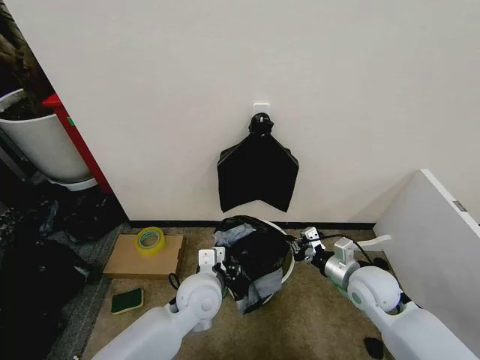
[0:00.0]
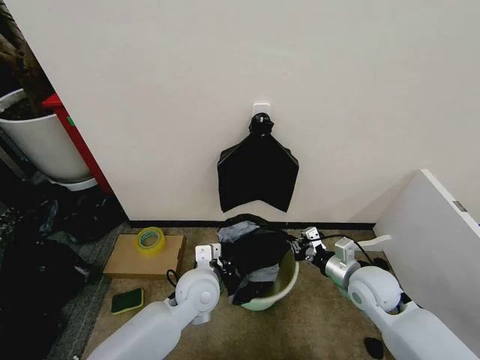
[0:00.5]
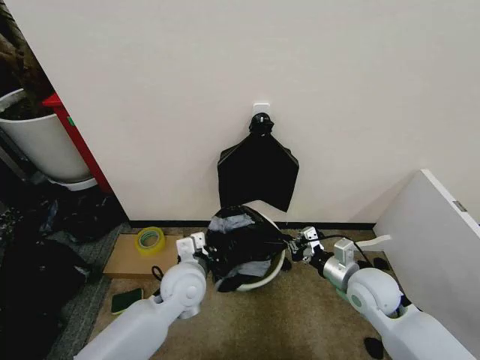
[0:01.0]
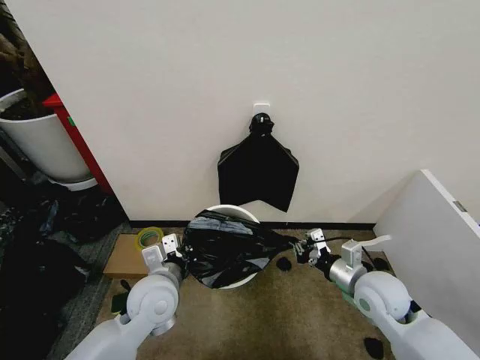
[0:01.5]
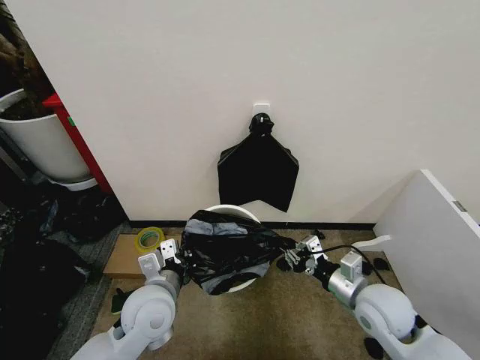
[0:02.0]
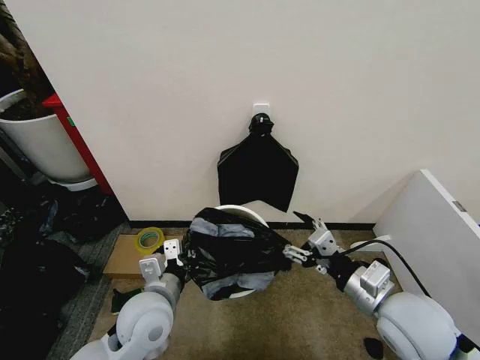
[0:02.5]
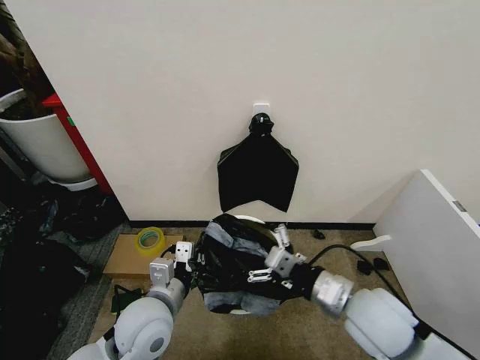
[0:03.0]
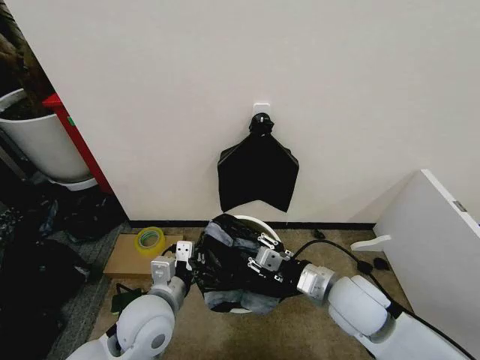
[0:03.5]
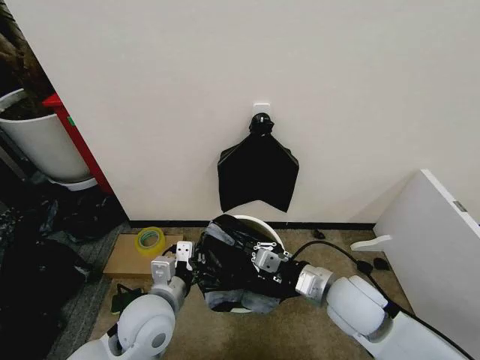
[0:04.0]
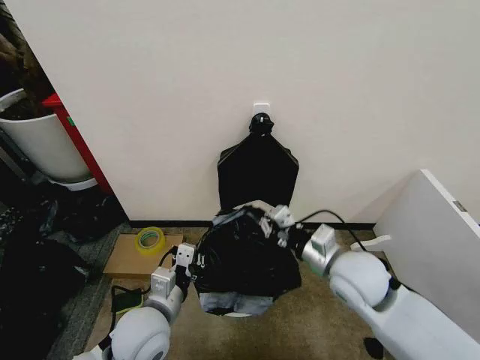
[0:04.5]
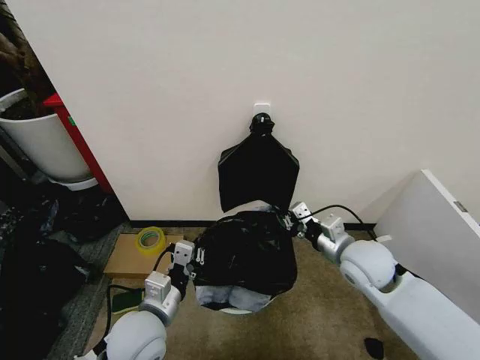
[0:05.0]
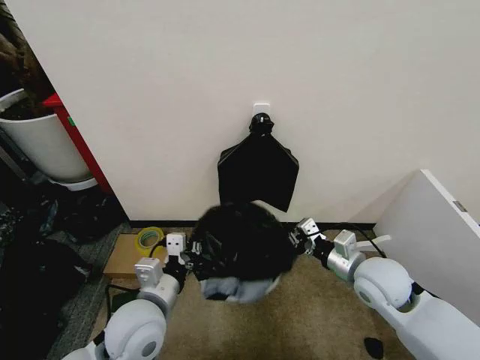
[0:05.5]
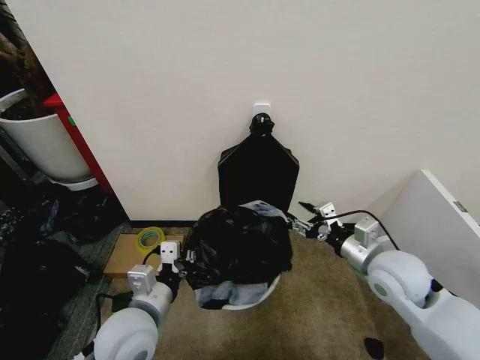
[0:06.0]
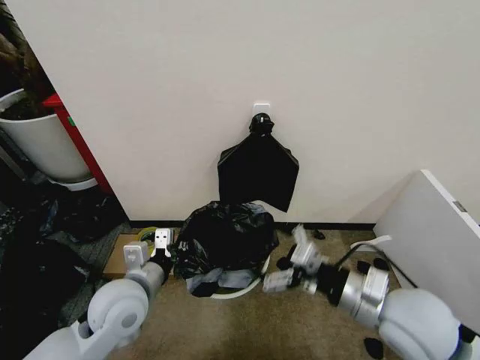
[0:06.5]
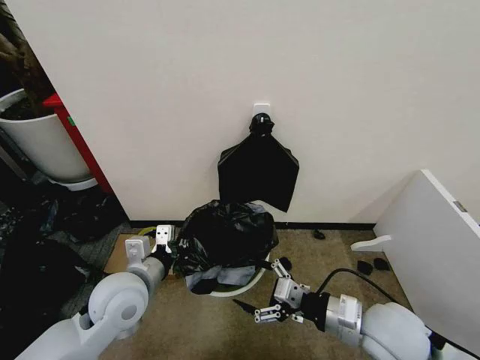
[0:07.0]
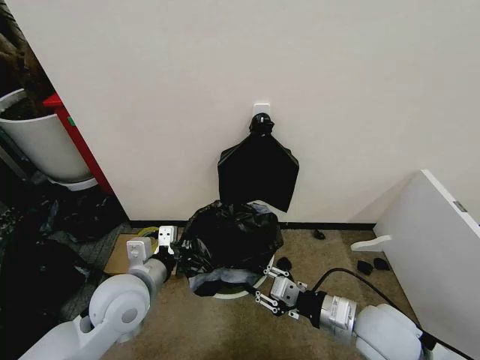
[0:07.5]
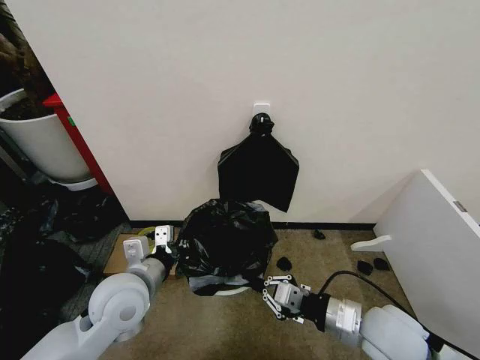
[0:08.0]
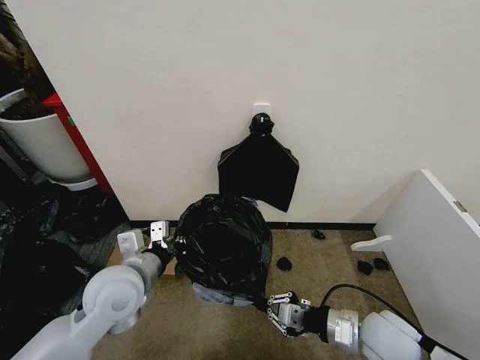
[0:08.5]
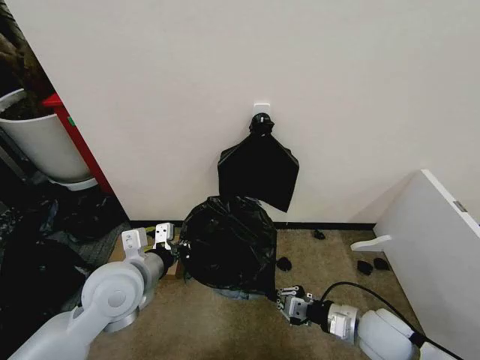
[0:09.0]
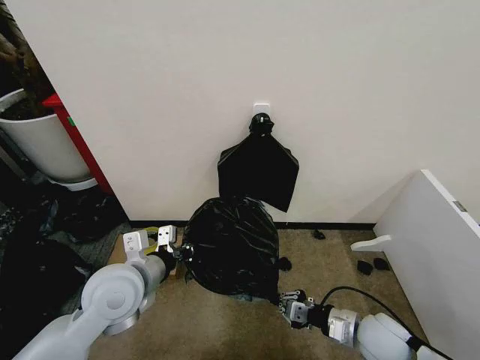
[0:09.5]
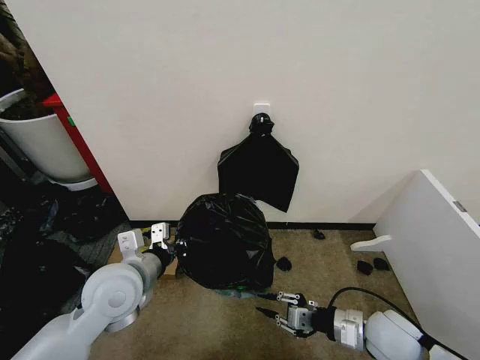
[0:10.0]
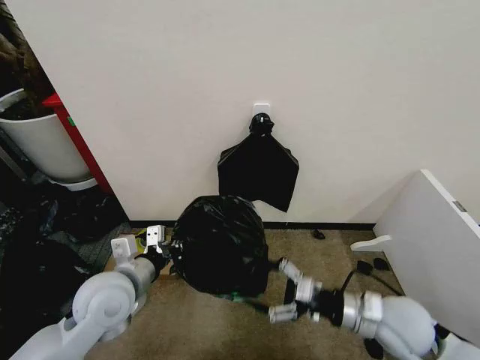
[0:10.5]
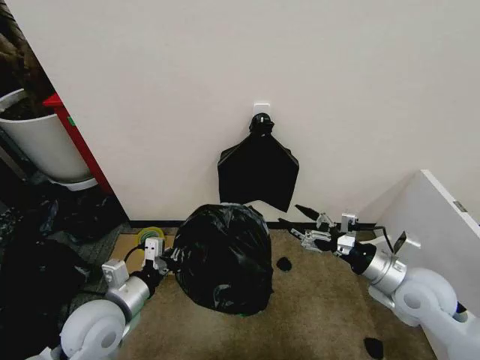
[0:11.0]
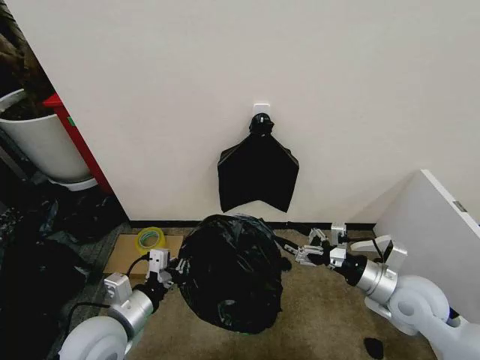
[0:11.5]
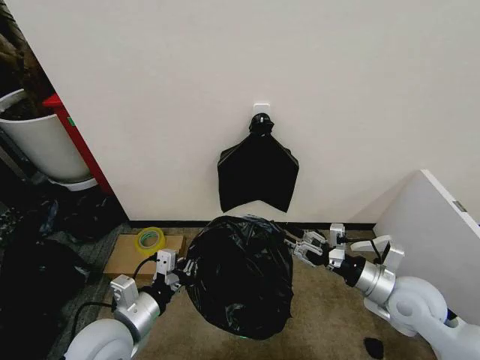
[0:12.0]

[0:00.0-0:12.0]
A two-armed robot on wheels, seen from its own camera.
Task of the whole recording: Place the garbage bag over the trash bin.
0.0 to 2.0 s: The right gripper travels backward by approximately 5 cm; the left gripper goes about 10 cm to the left, and closes up.
2.0 to 4.0 s: The right gripper moves to the left, roughly 5 cm, and opens, then closes again.
4.0 to 6.0 s: The right gripper goes about 10 cm to the right, and opens.
6.0 to 8.0 s: The left gripper travels forward by approximately 5 cm. Meanwhile the right gripper goes approximately 10 cm backward, and closes its fingers.
8.0 to 10.0 s: The right gripper shifts about 10 cm downward.
10.0 to 12.0 s: The left gripper heads backward and downward, covering roughly 10 cm; the right gripper shifts approximately 5 cm upward, and opens, then closes once more.

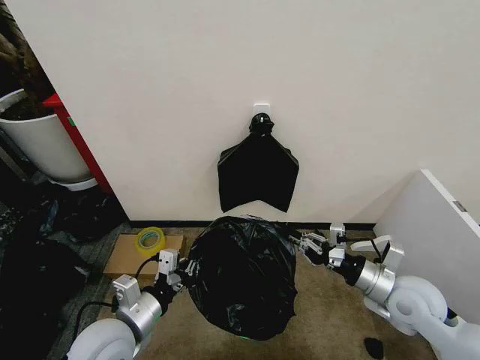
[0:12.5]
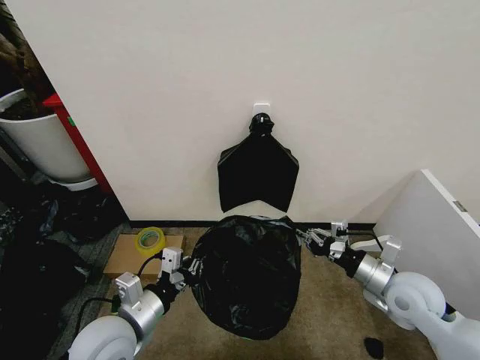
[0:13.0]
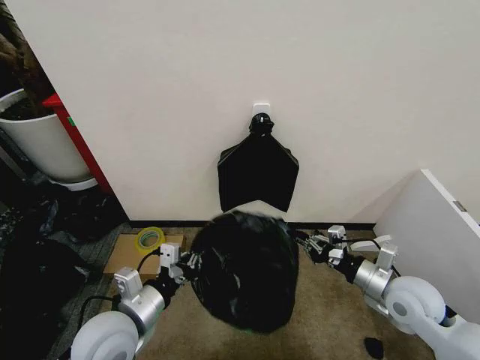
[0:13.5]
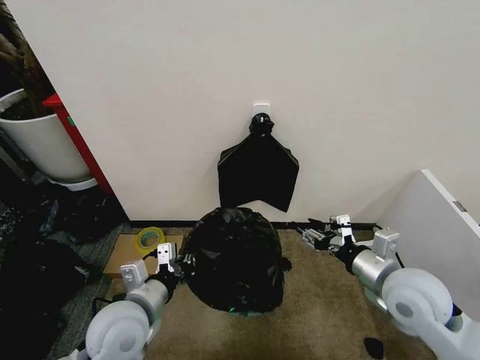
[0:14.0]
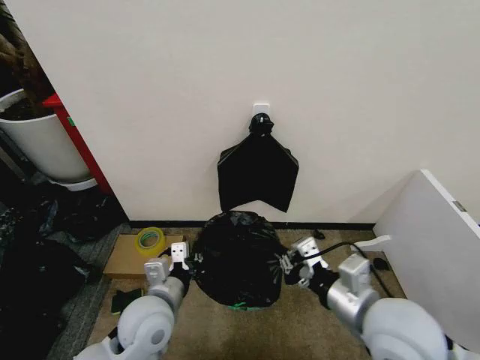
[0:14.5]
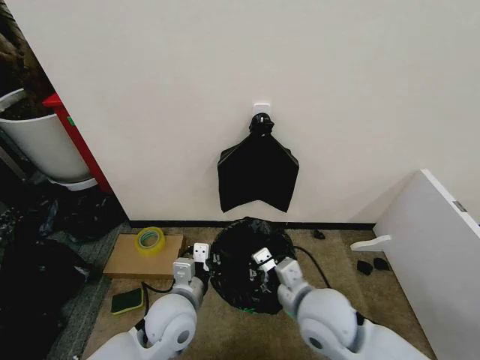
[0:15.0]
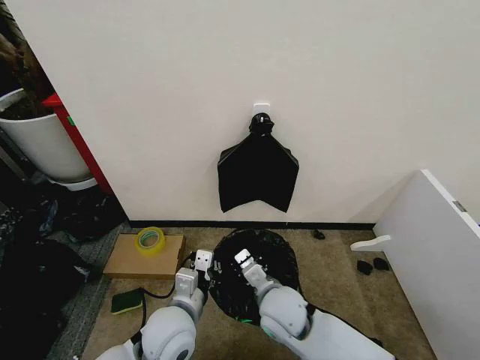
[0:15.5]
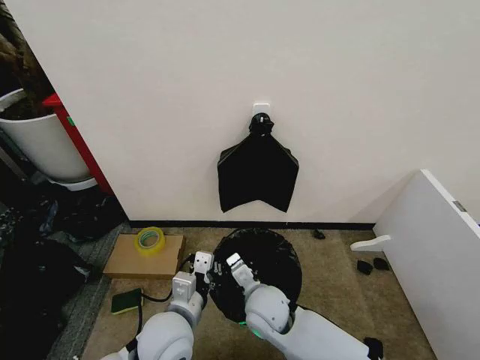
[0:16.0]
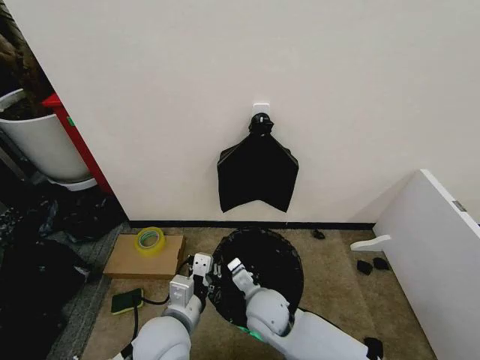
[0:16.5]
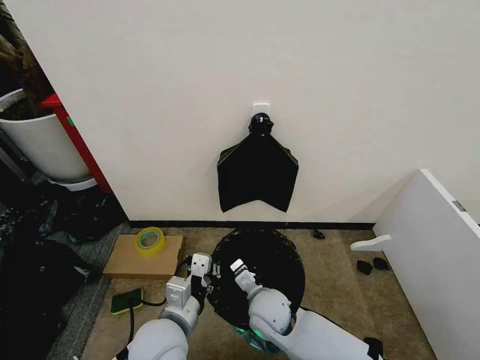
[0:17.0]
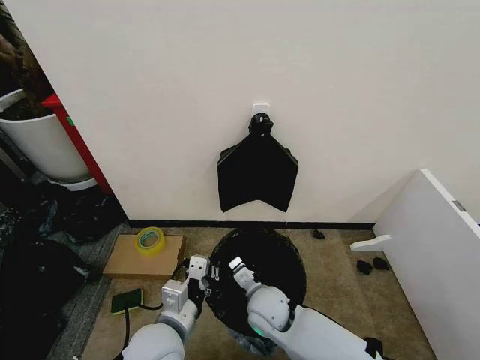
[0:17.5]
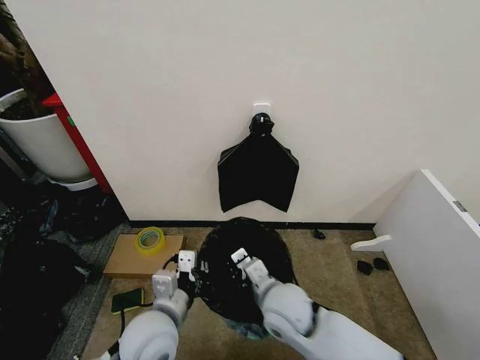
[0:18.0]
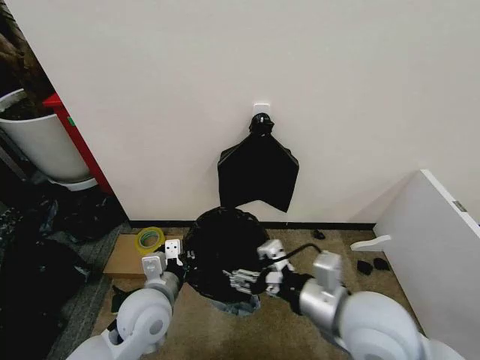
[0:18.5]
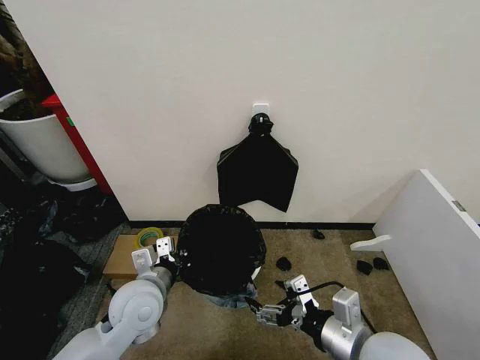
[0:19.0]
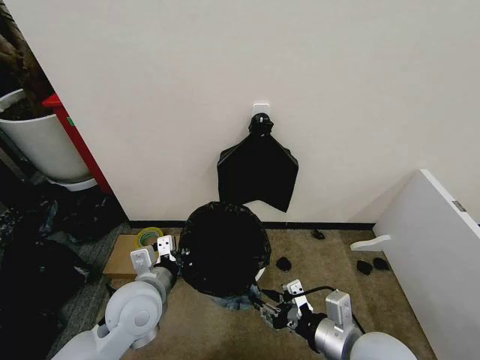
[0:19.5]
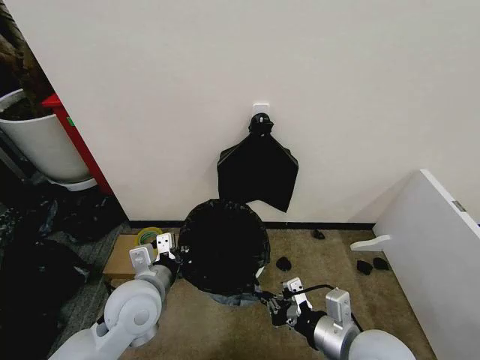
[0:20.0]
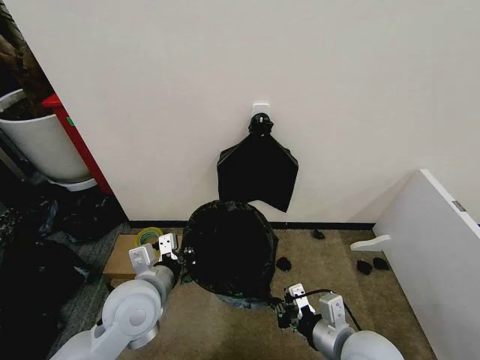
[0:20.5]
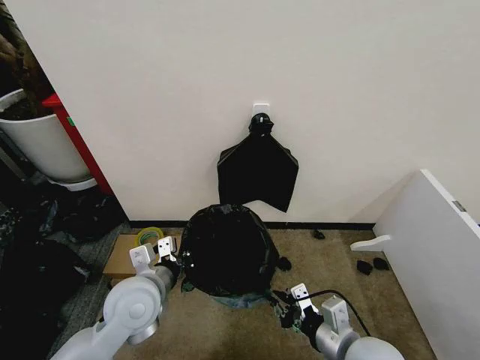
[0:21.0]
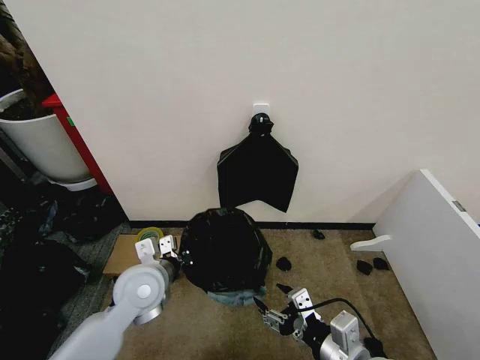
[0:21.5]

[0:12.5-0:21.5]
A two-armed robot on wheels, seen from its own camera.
Task of the whole recording: Place the garbage bag over the trash bin.
12.5 to 14.5 s: The left gripper moves to the right, roughly 5 cm. The right gripper goes roughly 15 cm to the left, upward and backward, and opens, then closes once more.
14.5 to 17.0 s: The left gripper moves about 5 cm. Meanwhile the right gripper travels downward, to the left and forward by approximately 25 cm.
17.0 to 19.5 s: The right gripper travels to the right, upward and backward by approximately 25 cm, and opens its fingers; the left gripper heads forward and to the left, covering approximately 10 cm.
19.5 to 21.5 s: The right gripper closes, then reopens.

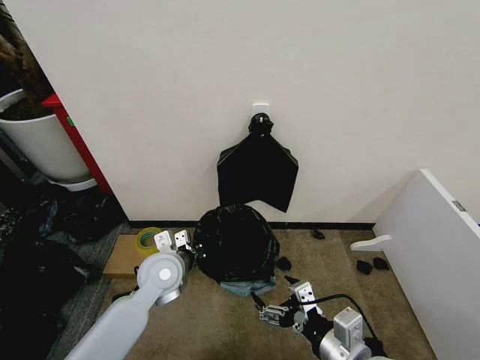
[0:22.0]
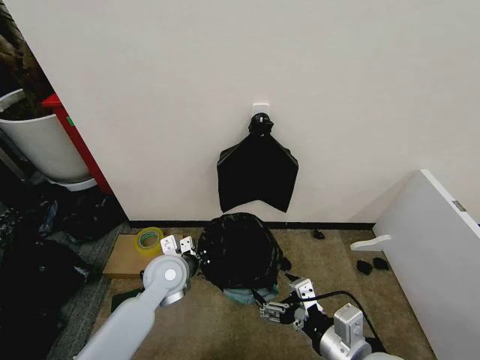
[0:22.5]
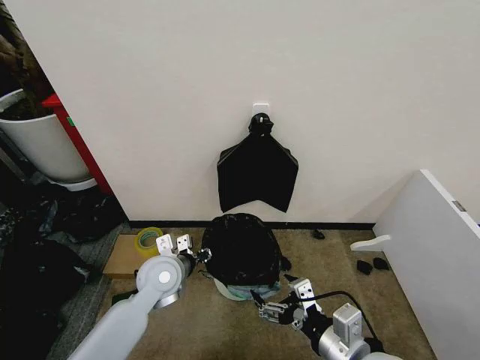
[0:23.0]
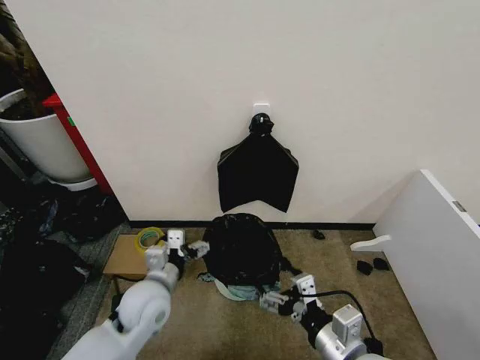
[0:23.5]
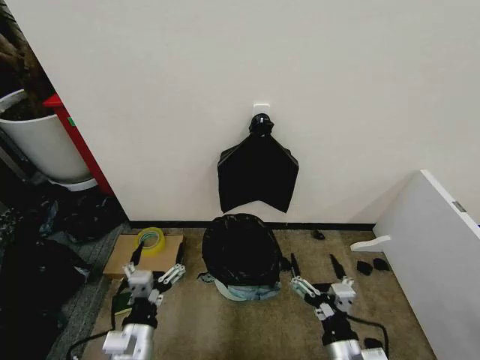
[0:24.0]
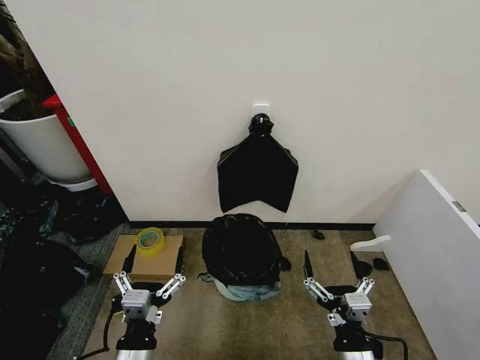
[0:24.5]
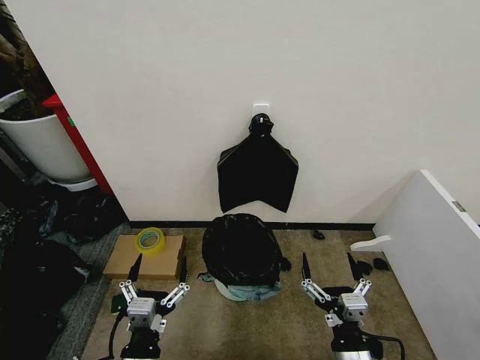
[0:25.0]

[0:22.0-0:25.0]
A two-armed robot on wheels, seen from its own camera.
Task of the whole recording: Place the garbage bag over the trash bin.
22.0 to 23.5 s: The left gripper shifts about 5 cm backward, and opens.
23.5 to 25.0 s: The left gripper is displaced backward by roughly 20 cm. The right gripper is displaced downward by some 10 cm.

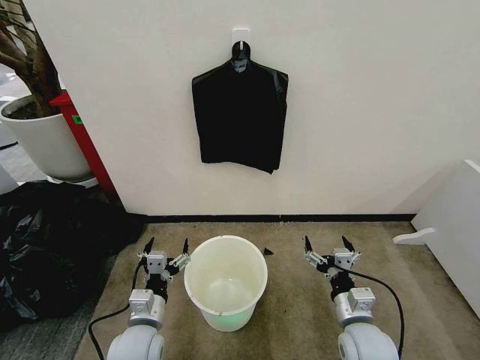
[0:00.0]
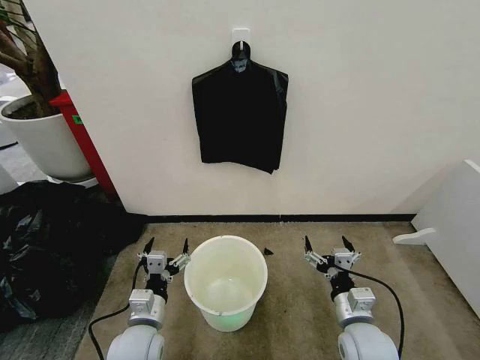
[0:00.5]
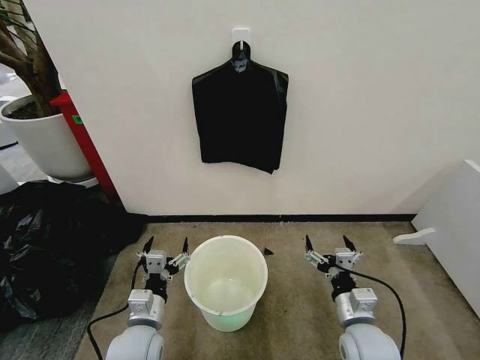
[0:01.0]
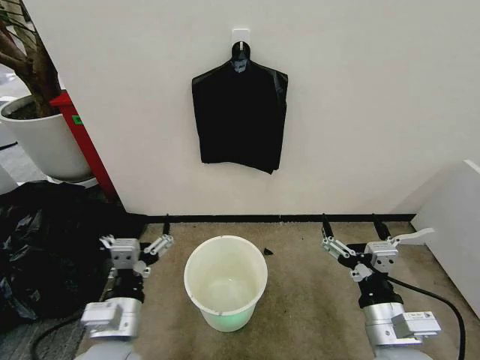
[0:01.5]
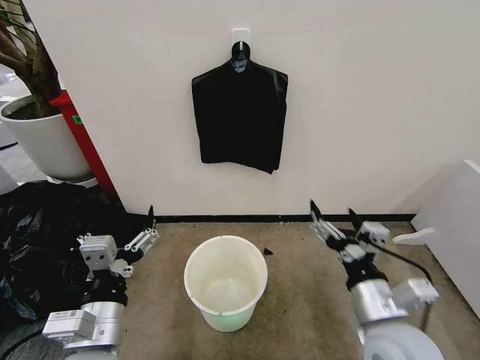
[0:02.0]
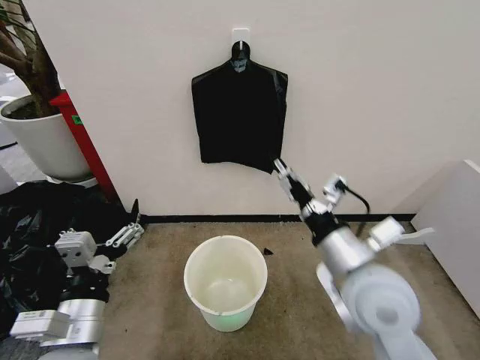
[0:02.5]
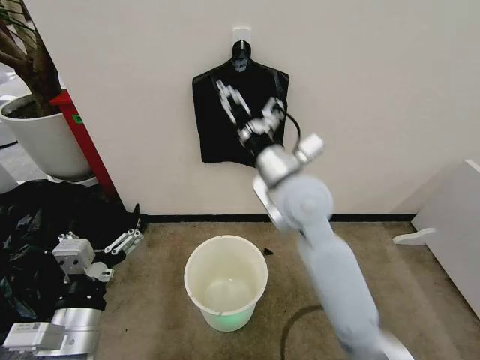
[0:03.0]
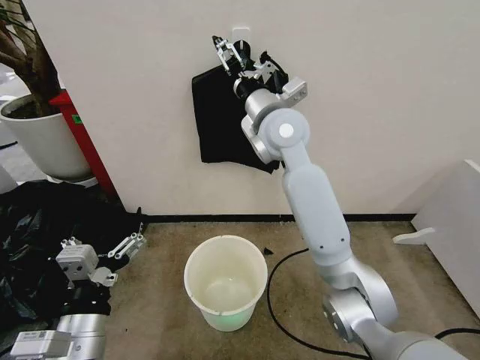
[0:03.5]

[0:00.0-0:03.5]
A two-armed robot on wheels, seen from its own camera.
Task of the whole recording: Place the garbage bag over the trash bin.
2.0 to 3.5 s: The right gripper goes approximately 40 cm forward, upward and to the left.
